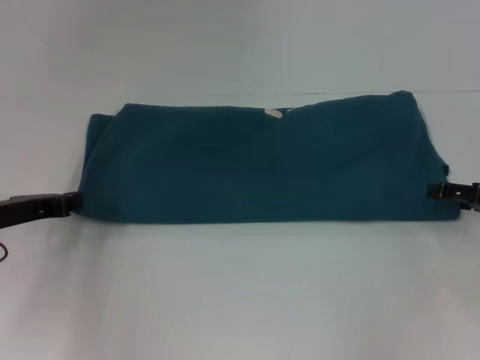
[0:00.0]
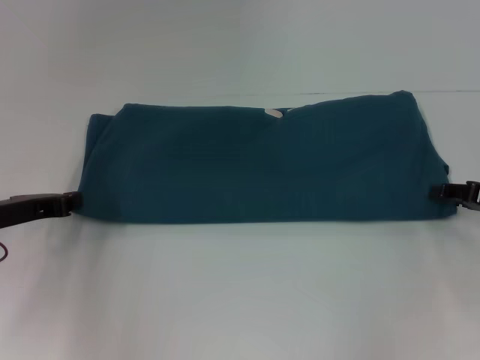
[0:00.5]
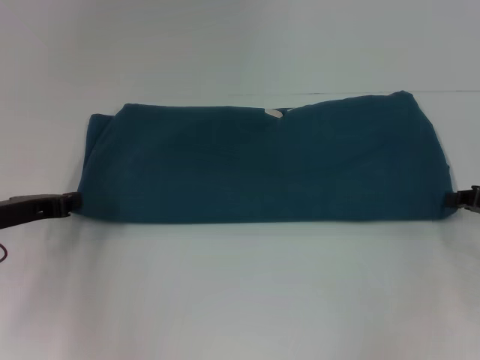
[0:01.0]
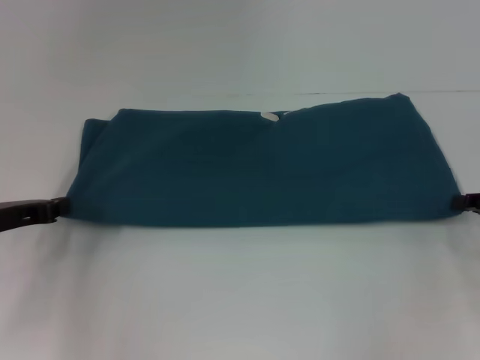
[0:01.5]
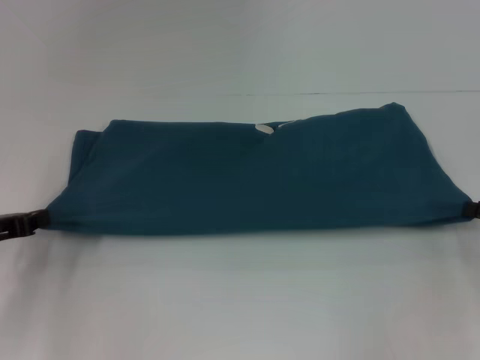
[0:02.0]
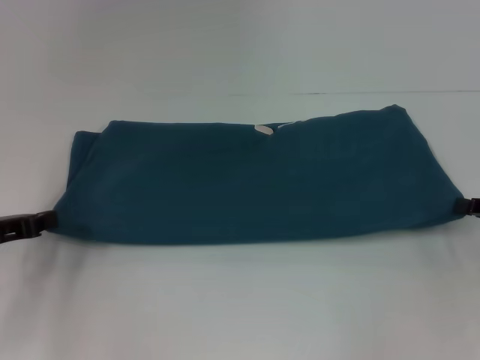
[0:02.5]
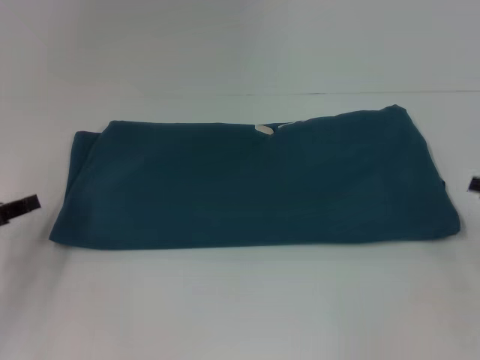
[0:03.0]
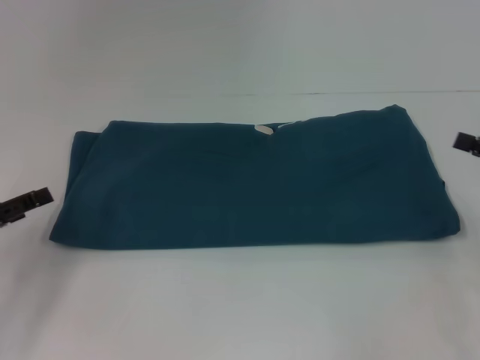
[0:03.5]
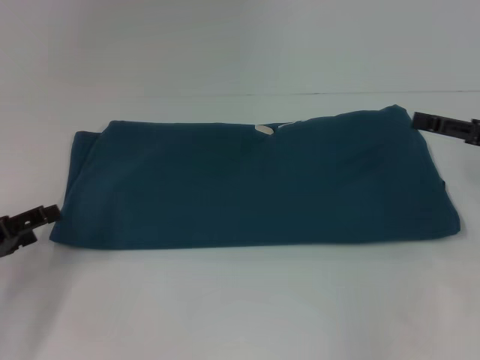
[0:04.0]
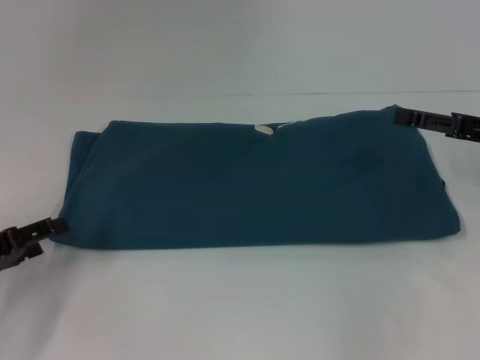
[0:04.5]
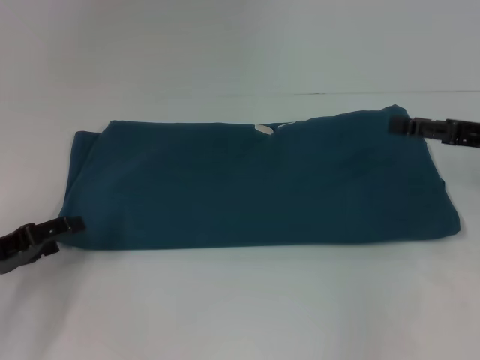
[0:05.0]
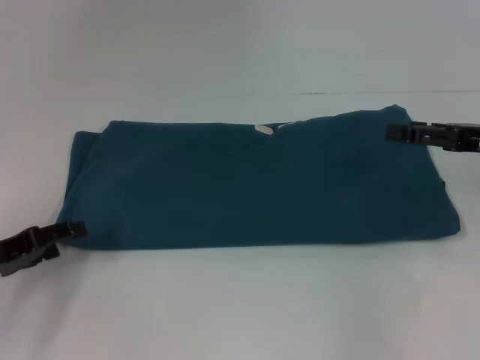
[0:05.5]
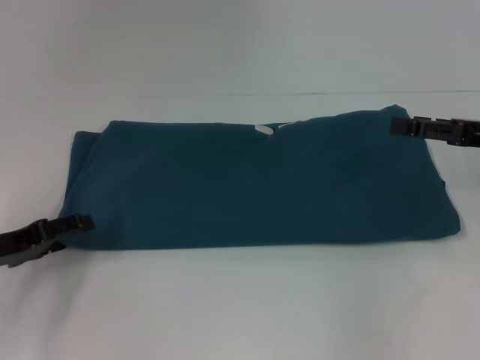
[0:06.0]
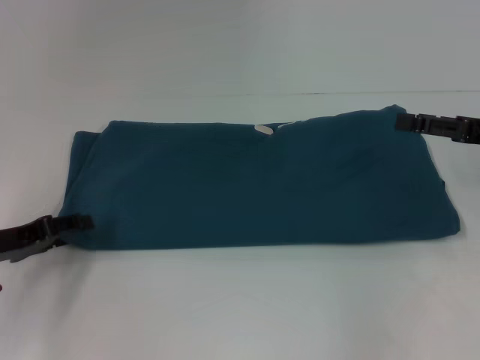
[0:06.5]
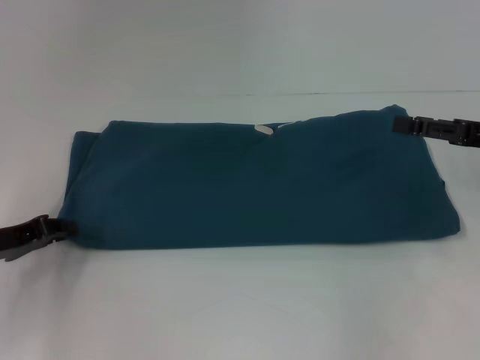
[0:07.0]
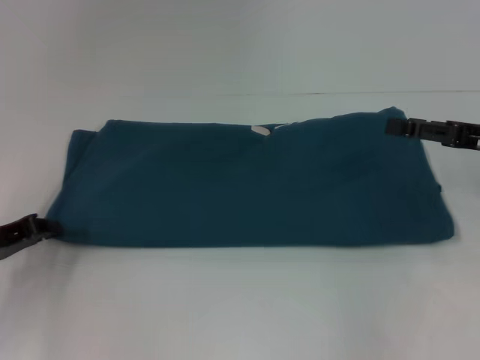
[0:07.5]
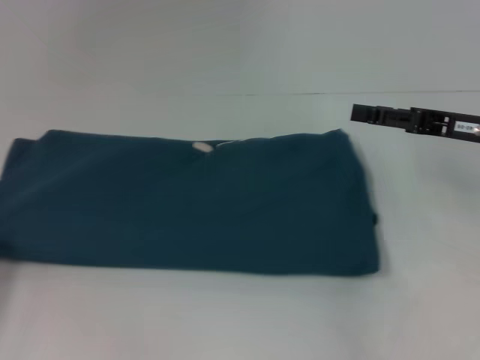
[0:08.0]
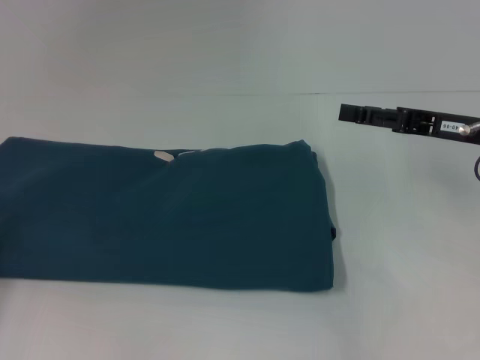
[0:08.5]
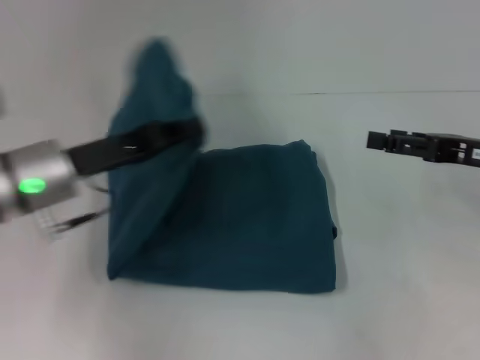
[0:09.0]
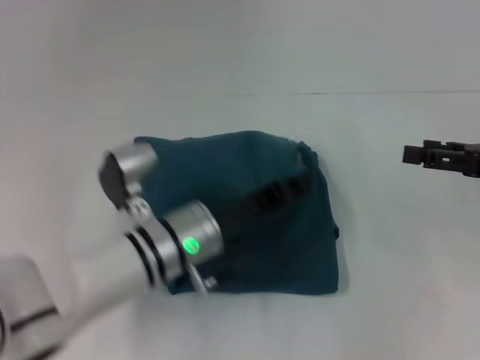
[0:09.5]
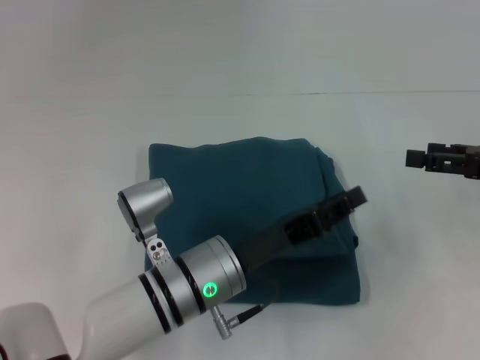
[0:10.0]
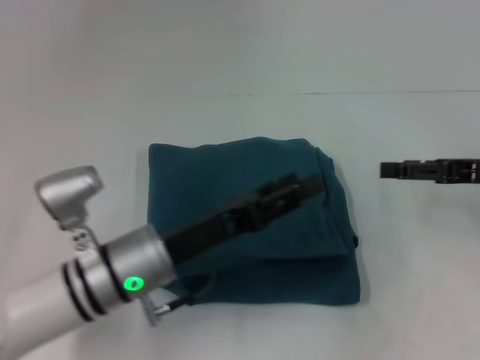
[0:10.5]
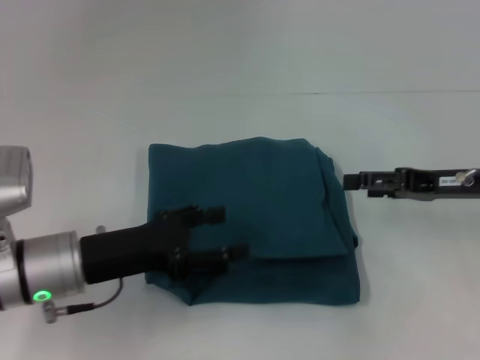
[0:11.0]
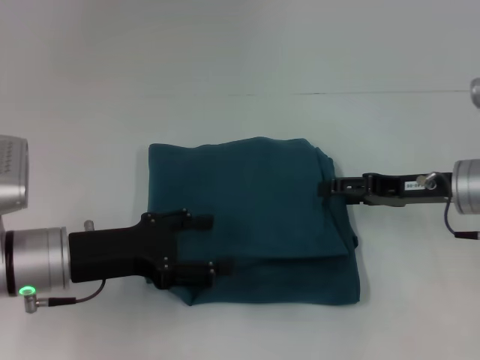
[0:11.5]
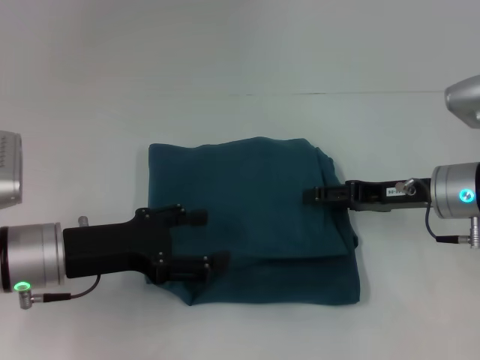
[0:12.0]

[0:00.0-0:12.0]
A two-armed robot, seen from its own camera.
Step, 0:00.0 to 0:10.0: Fold the clothes to the left.
0:00.0 to 0:02.0: The right gripper closes its fingers.
0:02.0 to 0:04.0: The left gripper opens. The right gripper goes some 5 cm upward, and opens.
0:04.0 to 0:06.0: There are only small adjustments of the grippers.
0:06.0 to 0:08.0: The left gripper travels to the left by some 5 cm, and closes its fingers.
0:08.0 to 0:10.0: The right gripper is displaced to the right by approximately 5 cm; the left gripper moves to the right, some 35 cm.
0:10.0 to 0:12.0: The grippers both shift to the left by roughly 15 cm. The left gripper opens its fingers.

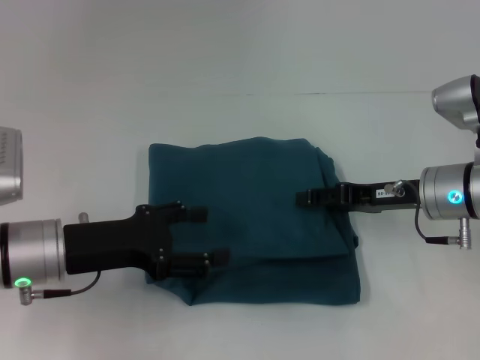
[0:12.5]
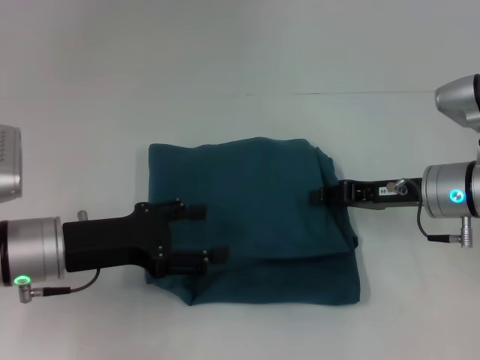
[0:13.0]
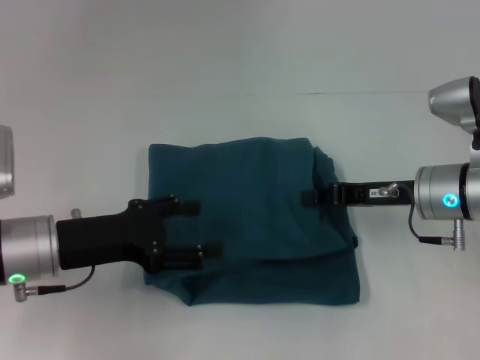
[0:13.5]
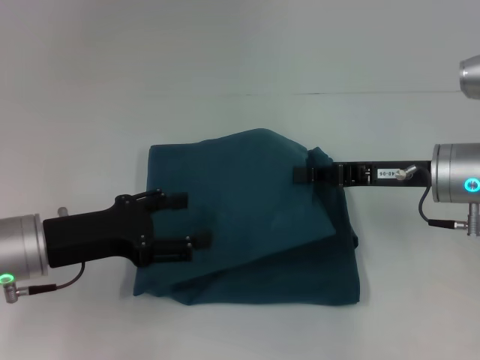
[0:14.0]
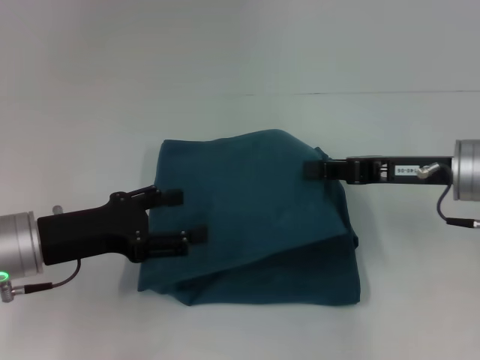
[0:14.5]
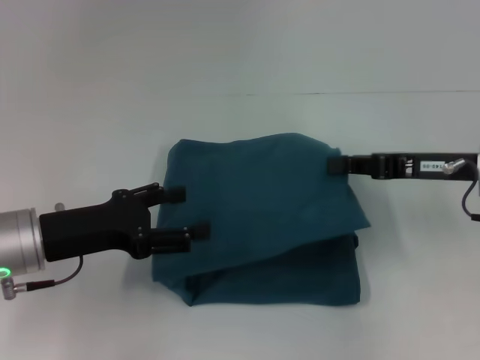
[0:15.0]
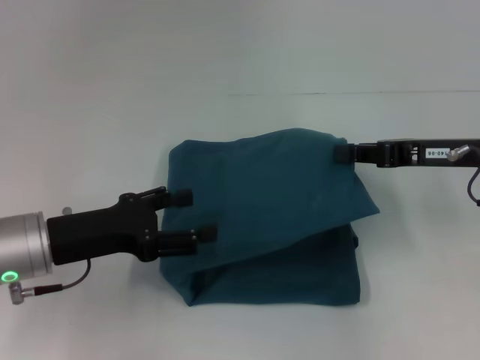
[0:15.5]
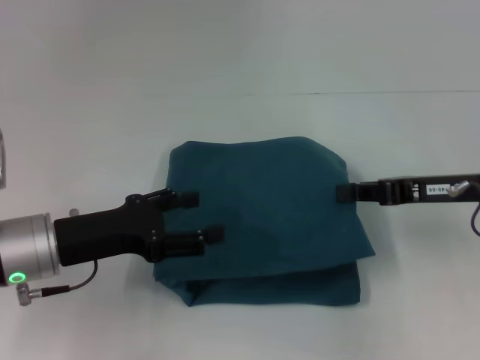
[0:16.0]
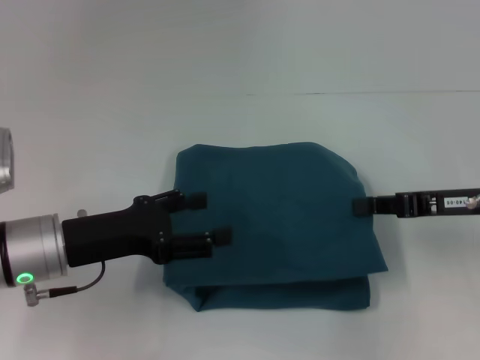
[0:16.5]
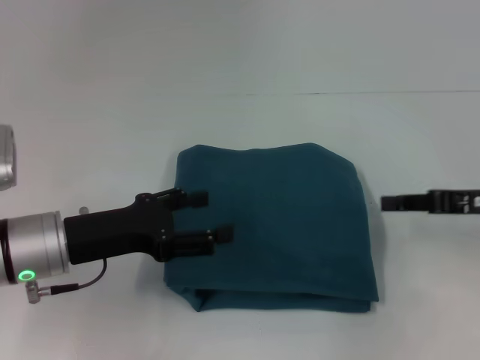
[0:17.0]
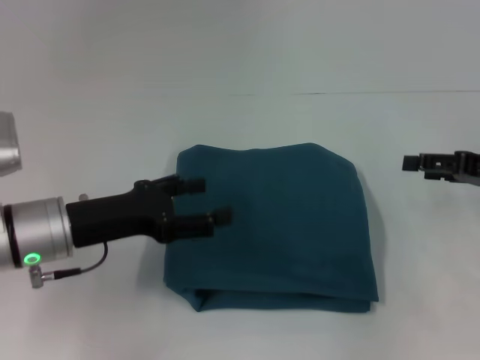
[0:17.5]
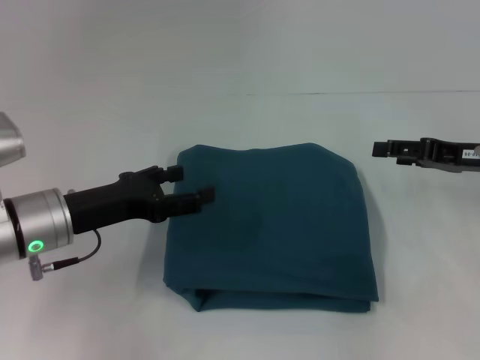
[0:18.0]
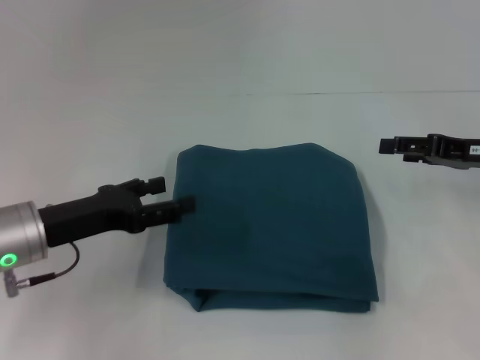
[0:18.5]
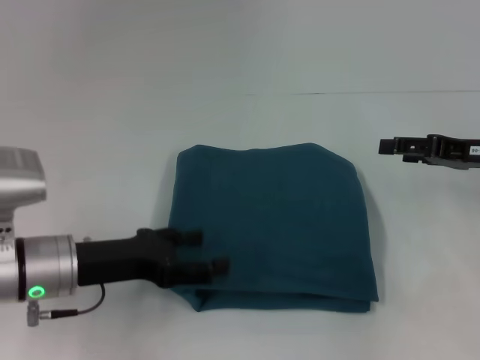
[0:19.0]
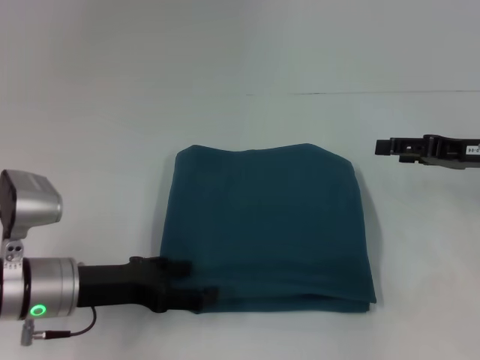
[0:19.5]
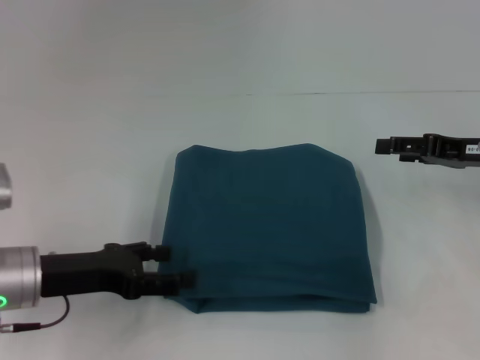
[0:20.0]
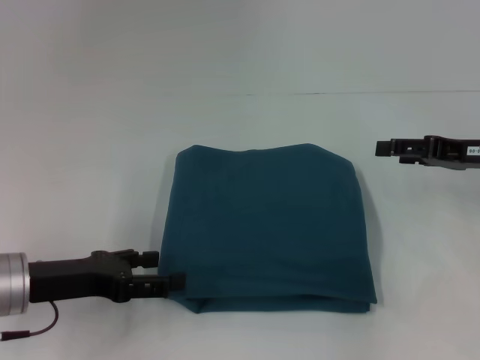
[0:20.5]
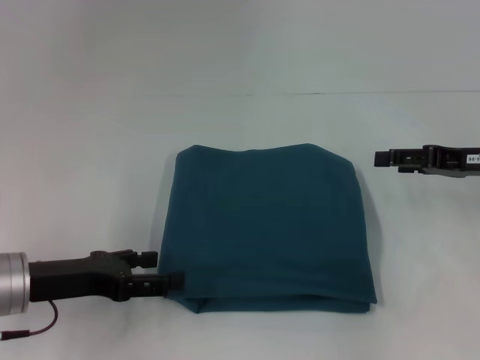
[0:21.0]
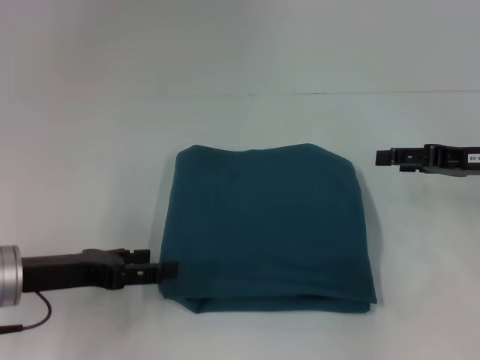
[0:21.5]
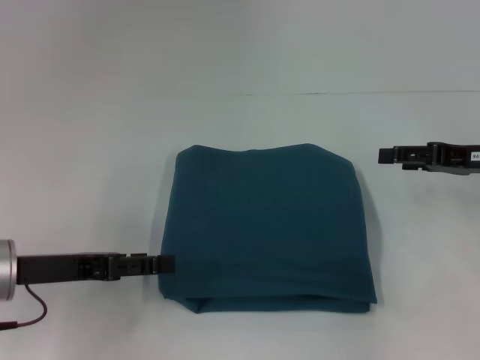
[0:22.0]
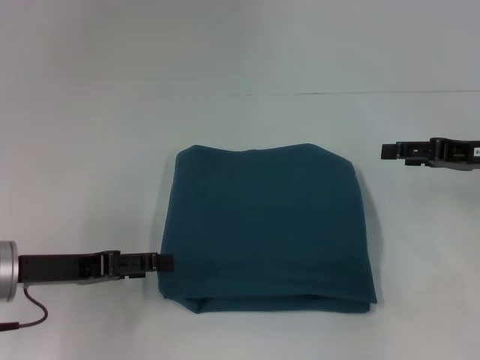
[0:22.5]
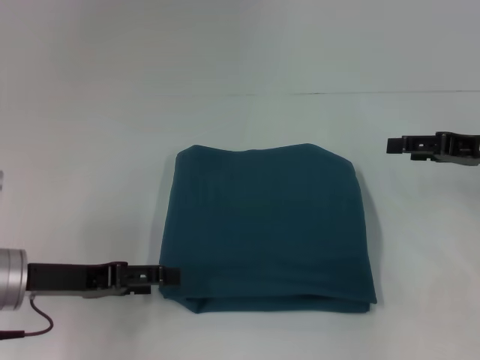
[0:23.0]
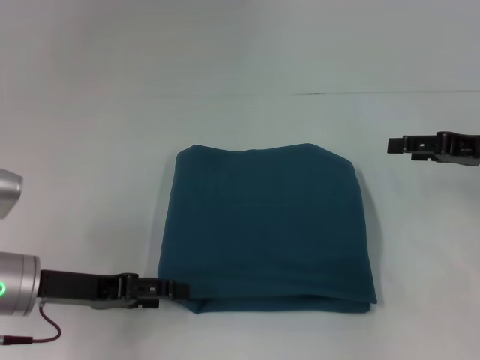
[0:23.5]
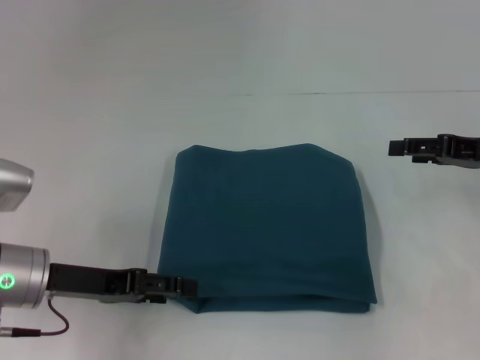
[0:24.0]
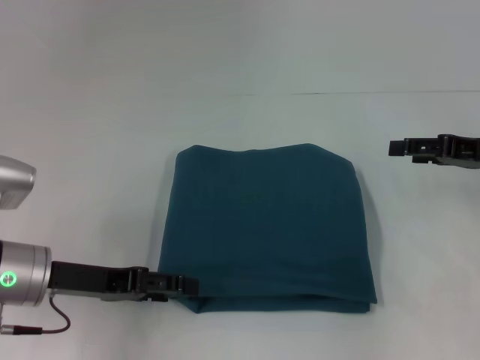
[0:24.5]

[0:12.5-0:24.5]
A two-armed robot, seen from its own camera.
0:12.5 to 0:14.5: The right gripper closes up.
0:14.5 to 0:16.5: The right gripper ends up some 5 cm from where it was.
0:16.5 to 0:18.5: The right gripper opens up.
0:18.5 to 0:20.5: The grippers stay close to where they were, moving slightly.
0:22.5 to 0:24.5: The grippers move only a little.

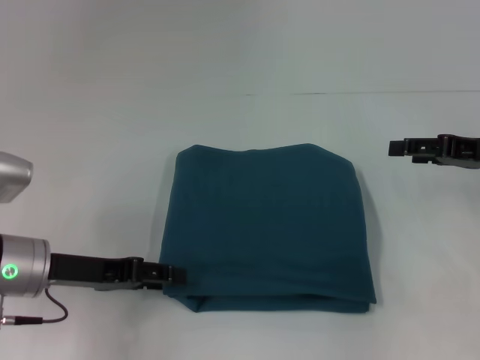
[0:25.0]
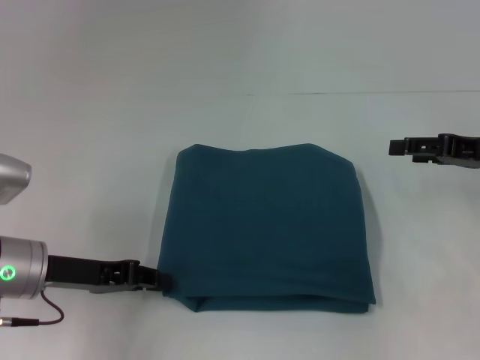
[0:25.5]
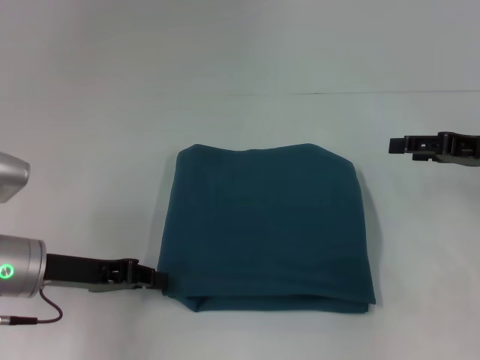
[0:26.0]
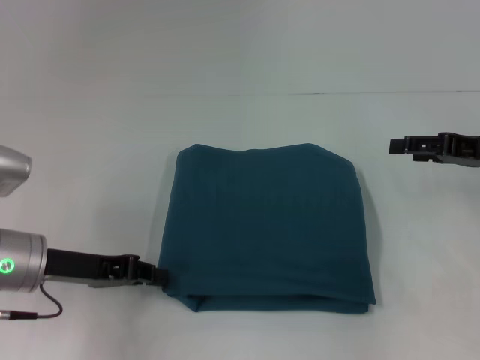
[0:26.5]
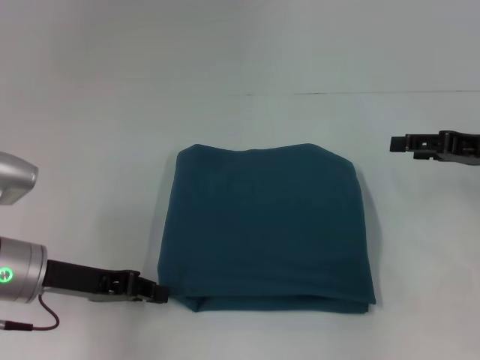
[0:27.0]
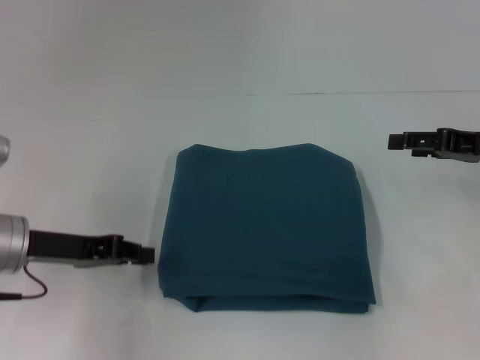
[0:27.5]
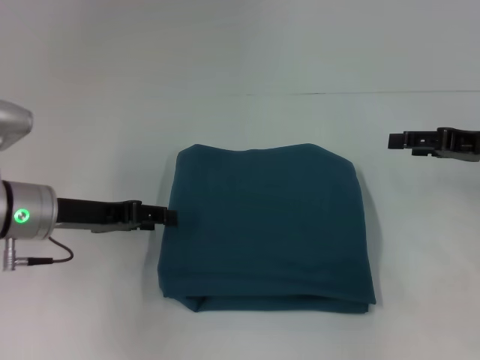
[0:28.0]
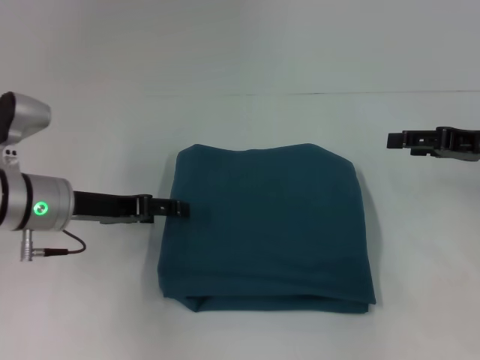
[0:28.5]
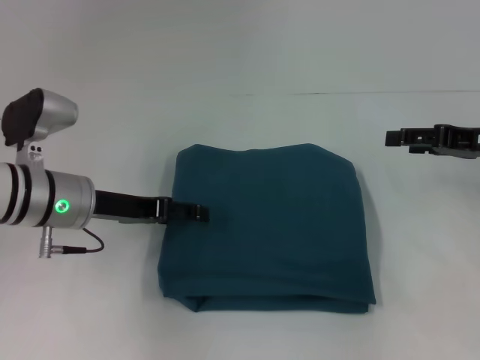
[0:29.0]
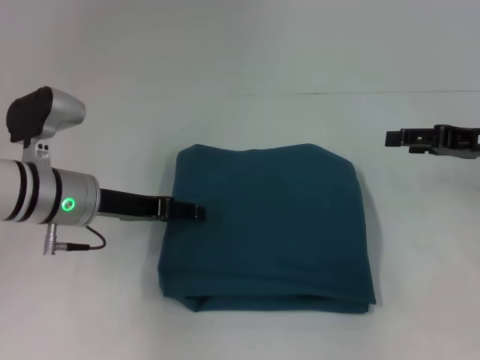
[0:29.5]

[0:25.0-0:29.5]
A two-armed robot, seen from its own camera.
0:25.0 to 0:27.0: The left gripper closes up.
0:27.0 to 0:29.5: The left gripper moves forward, approximately 5 cm, and opens.
